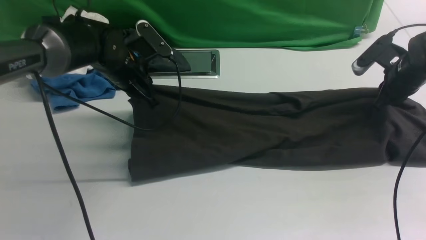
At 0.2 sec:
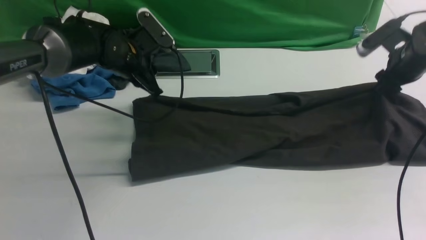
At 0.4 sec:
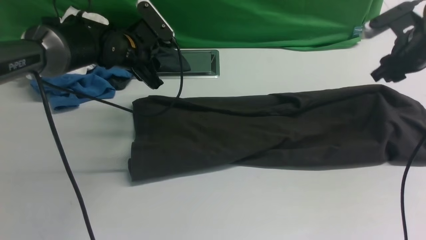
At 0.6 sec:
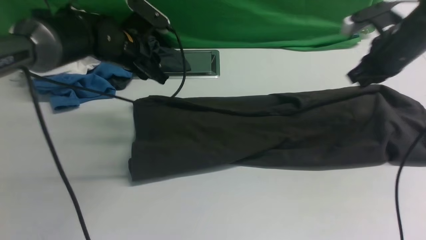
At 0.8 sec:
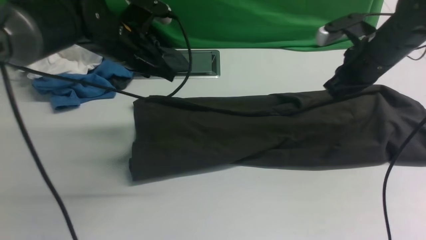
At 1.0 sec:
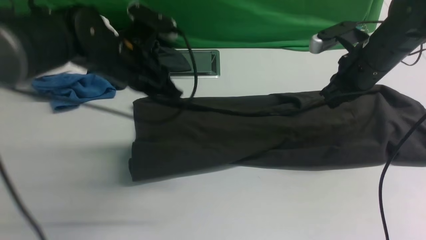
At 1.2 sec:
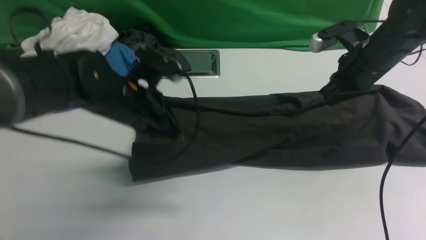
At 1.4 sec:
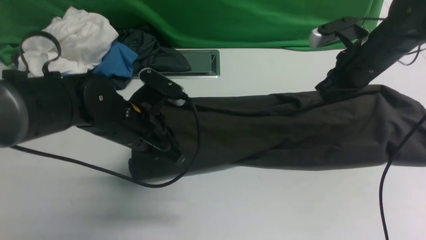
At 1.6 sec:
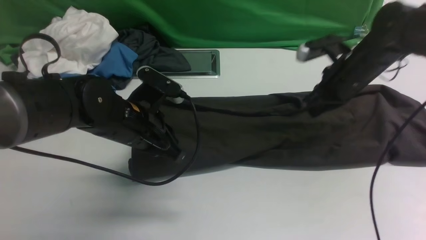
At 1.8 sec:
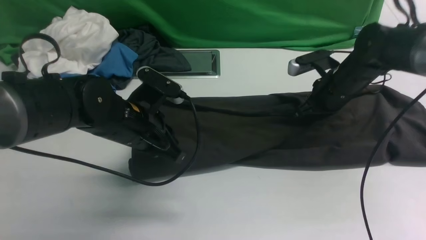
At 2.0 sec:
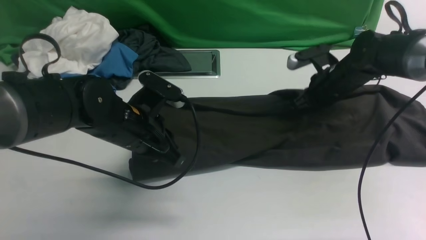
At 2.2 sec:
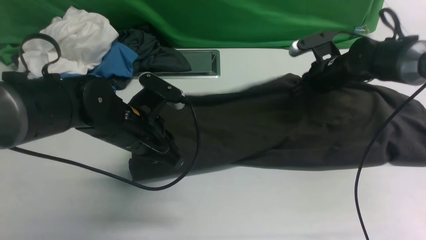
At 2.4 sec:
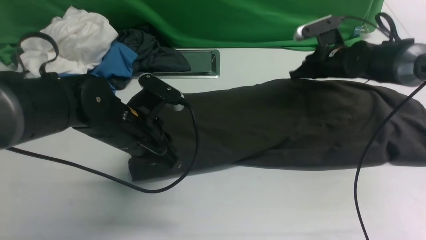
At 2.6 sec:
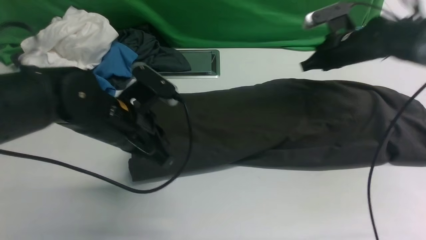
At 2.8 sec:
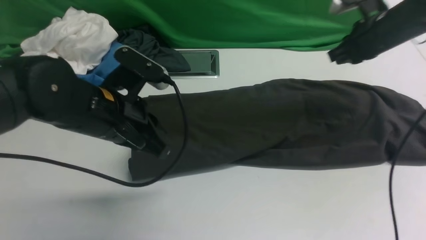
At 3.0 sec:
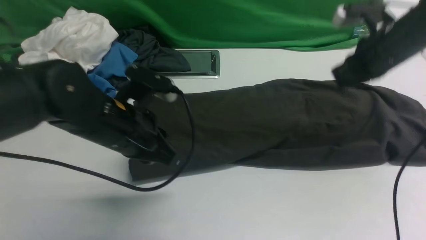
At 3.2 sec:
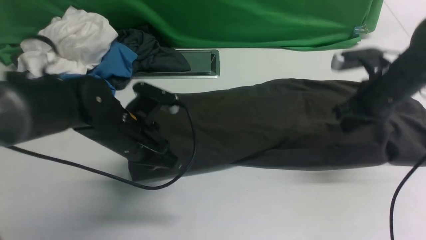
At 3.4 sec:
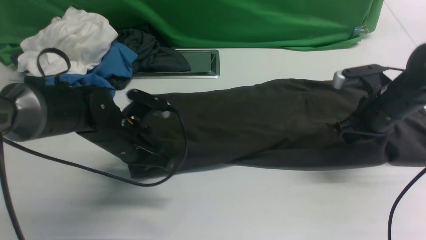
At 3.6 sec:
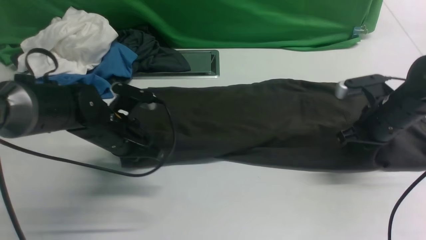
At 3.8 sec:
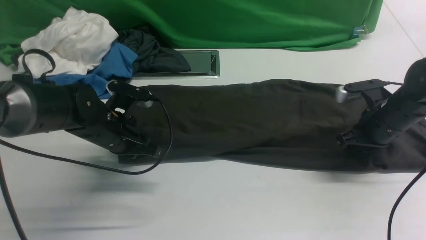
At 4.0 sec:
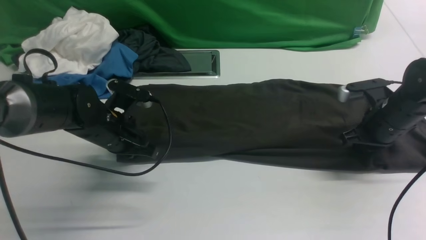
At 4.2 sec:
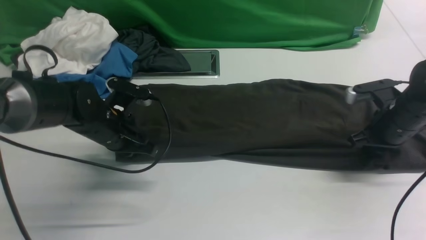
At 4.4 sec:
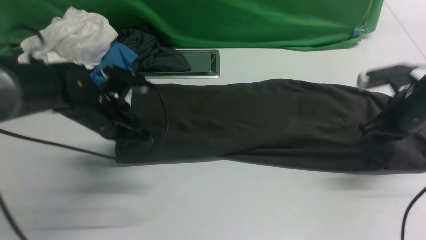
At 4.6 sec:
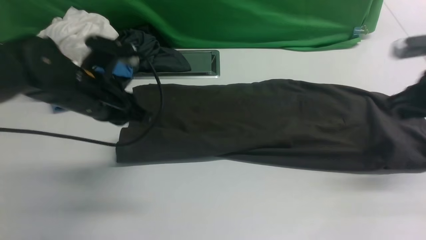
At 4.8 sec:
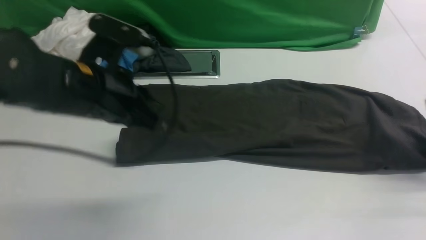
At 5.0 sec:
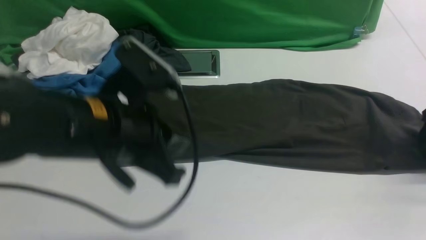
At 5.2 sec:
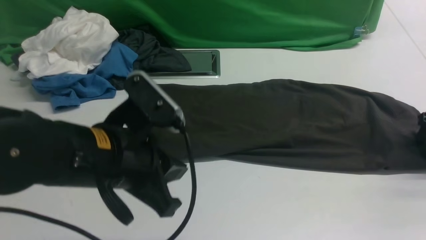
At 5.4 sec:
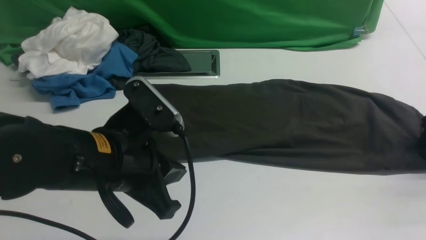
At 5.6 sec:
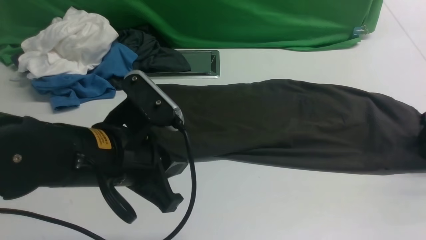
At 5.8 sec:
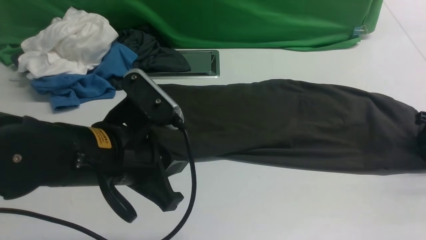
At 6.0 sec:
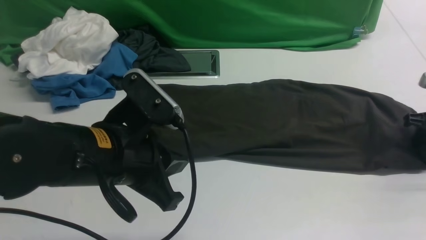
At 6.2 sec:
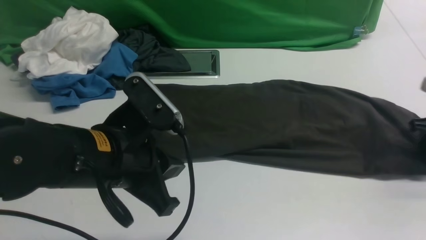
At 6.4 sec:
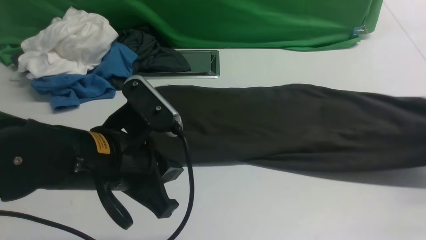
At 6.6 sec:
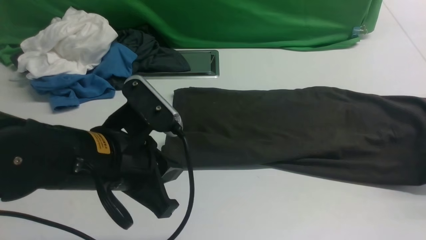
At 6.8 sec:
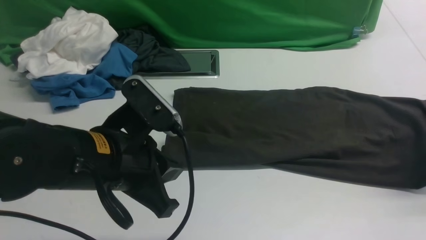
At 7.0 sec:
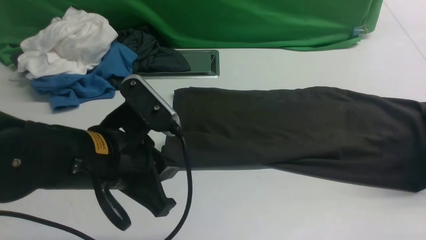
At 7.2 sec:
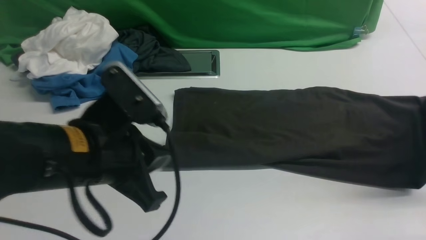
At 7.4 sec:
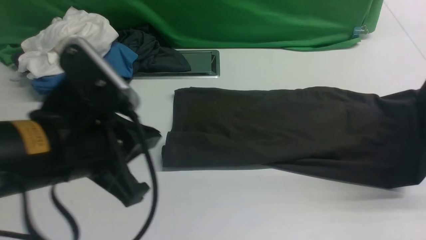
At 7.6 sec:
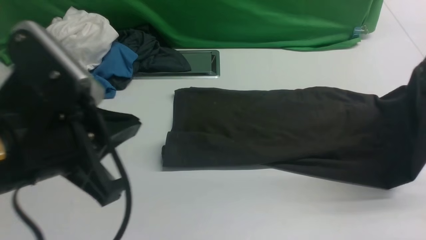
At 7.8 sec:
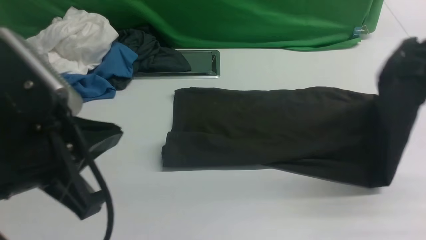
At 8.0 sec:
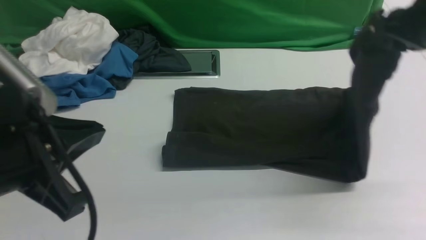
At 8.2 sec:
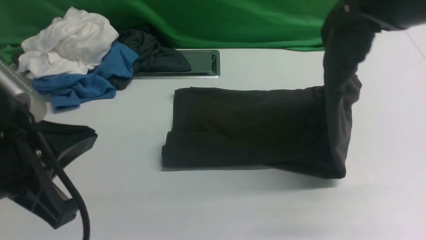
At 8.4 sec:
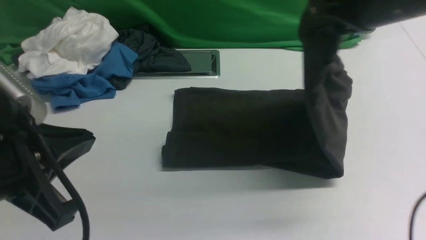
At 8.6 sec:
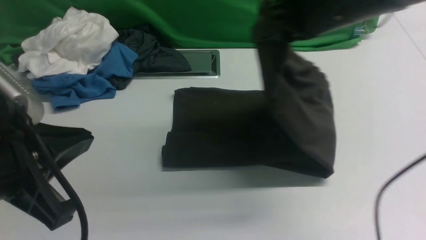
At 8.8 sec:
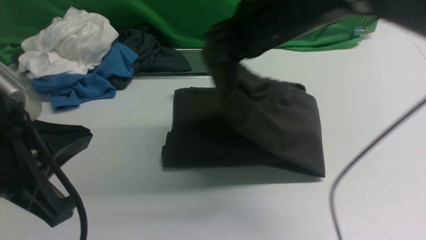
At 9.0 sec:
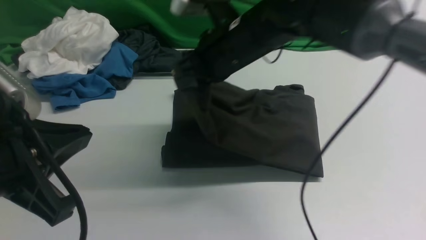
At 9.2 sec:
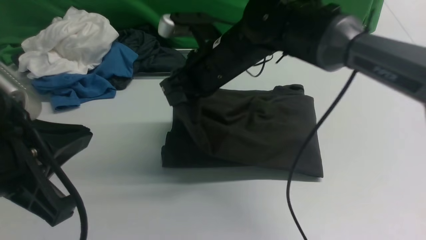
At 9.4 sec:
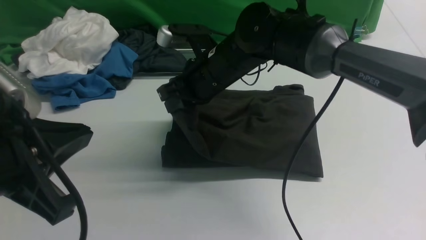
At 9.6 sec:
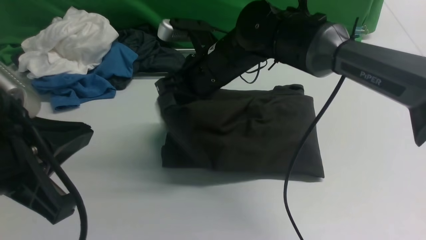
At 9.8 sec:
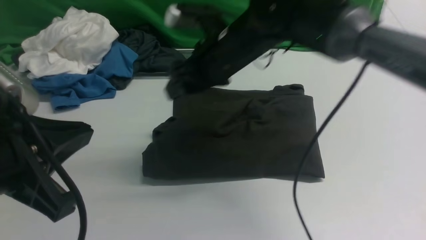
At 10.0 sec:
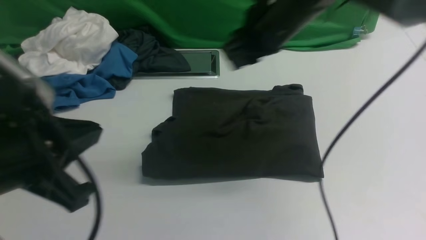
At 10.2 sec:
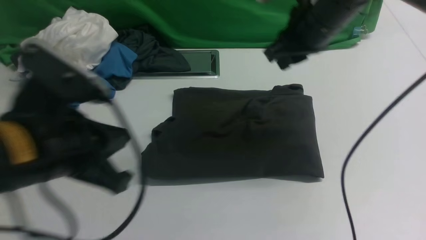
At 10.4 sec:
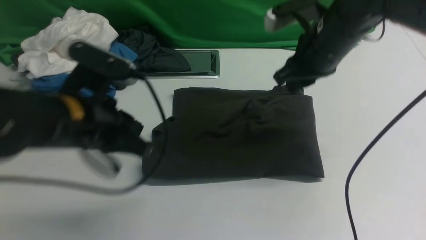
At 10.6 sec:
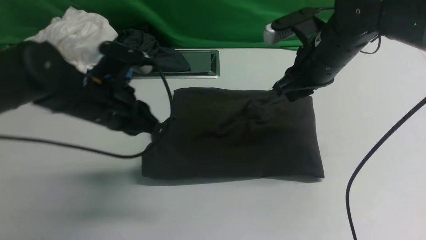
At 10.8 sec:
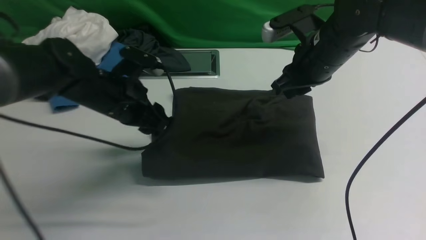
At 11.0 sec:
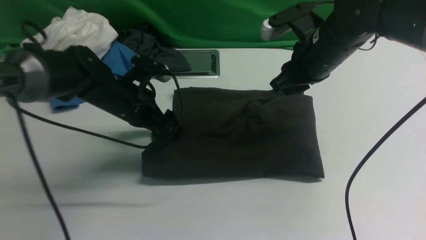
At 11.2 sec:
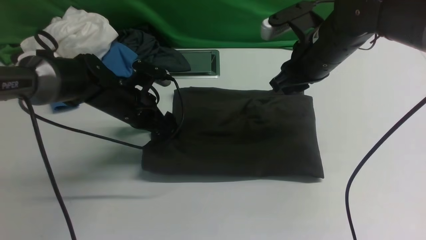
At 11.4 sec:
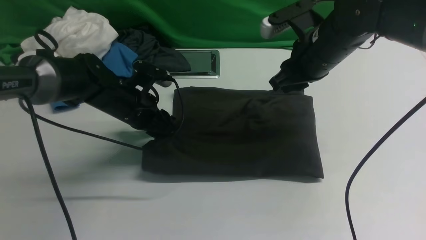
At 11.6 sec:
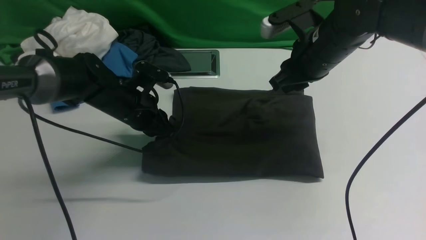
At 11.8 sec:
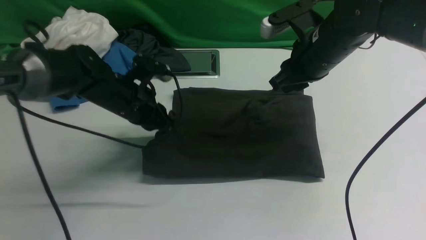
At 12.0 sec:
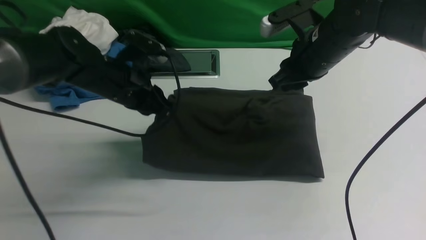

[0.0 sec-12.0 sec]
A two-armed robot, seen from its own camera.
Step, 0.8 sec to 5.4 sec: use the right arm to clamp the right edge of the fabric.
Step, 5.6 sec to 9.8 sec: use the right arm to drag the right edge of the fabric to the left and folds it over the left edge.
0.0 sec to 1.6 sec: The right gripper travels to the left by approximately 10 cm, and closes. The left gripper goes some 15 cm backward, and opens and closes again.
1.6 sec to 3.0 sec: The right gripper ends up roughly 5 cm from where it was.
3.0 sec to 4.4 sec: The left gripper shifts by about 5 cm; the right gripper heads backward, covering approximately 5 cm.
4.4 sec to 6.0 sec: The right gripper goes approximately 10 cm to the right and downward, and opens and closes again. The left gripper travels backward, upward and to the right by approximately 15 cm.
6.0 sec to 7.6 sec: The left gripper moves upward, about 5 cm. Meanwhile the right gripper travels upward and to the left by some 20 cm.
7.6 sec to 9.0 sec: The right gripper goes roughly 30 cm to the left.
9.0 sec to 10.4 sec: The right gripper moves to the right, approximately 15 cm, while the left gripper goes about 15 cm forward and downward.
10.4 sec to 12.0 sec: The left gripper is displaced forward and downward by about 15 cm, and opens and closes again.

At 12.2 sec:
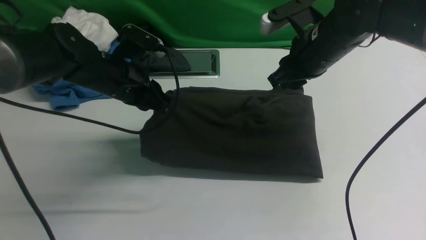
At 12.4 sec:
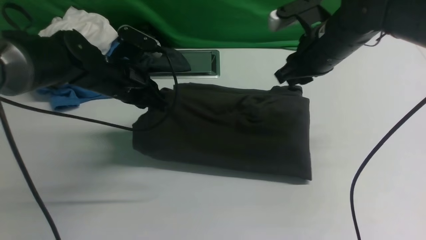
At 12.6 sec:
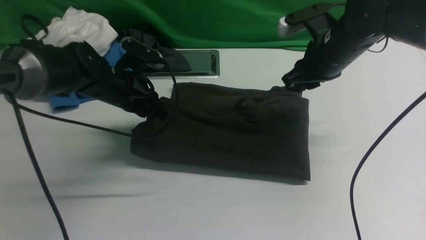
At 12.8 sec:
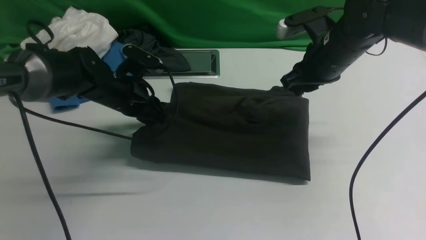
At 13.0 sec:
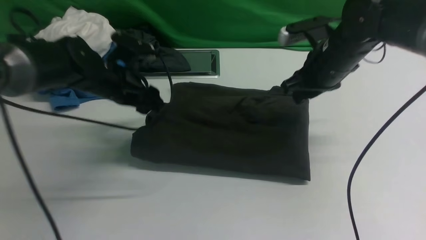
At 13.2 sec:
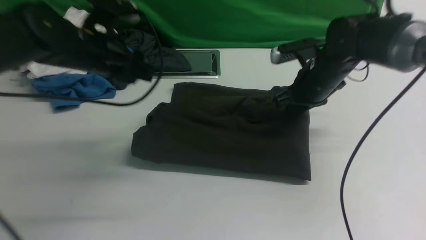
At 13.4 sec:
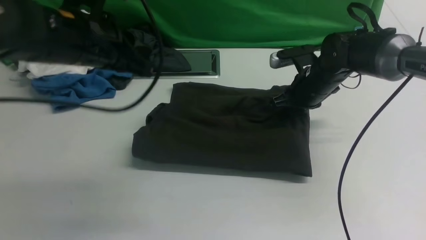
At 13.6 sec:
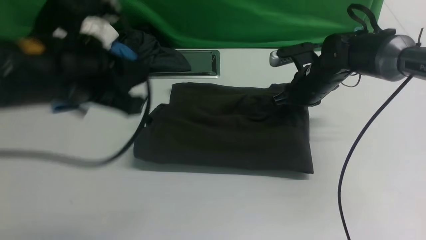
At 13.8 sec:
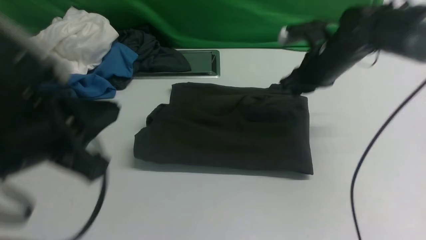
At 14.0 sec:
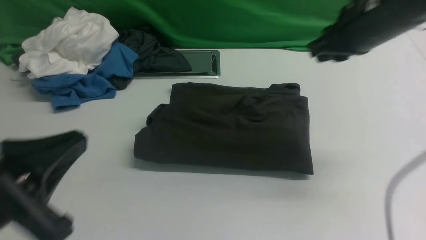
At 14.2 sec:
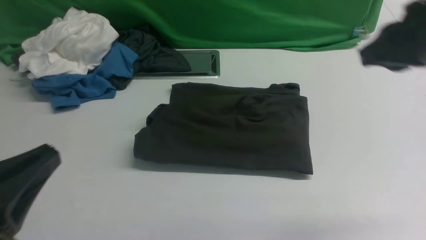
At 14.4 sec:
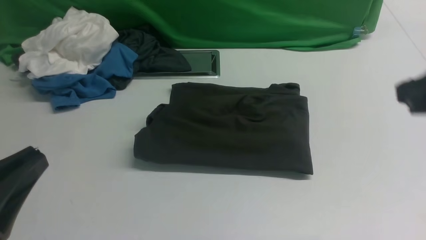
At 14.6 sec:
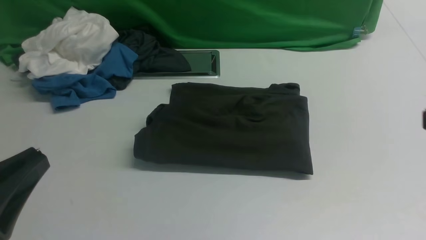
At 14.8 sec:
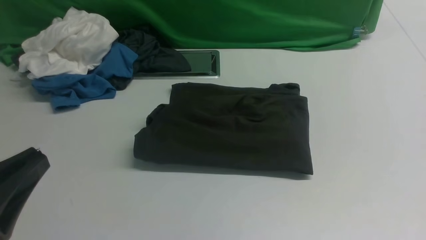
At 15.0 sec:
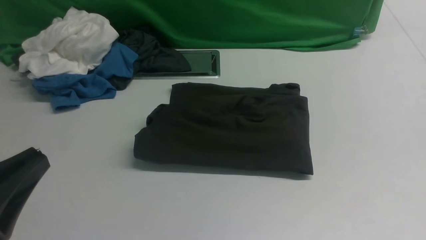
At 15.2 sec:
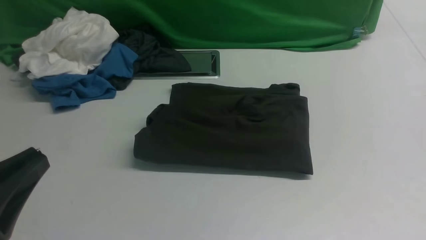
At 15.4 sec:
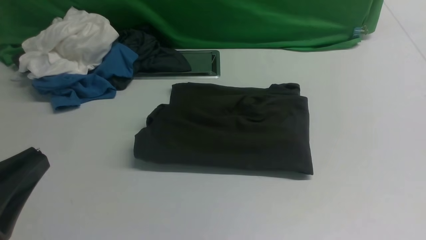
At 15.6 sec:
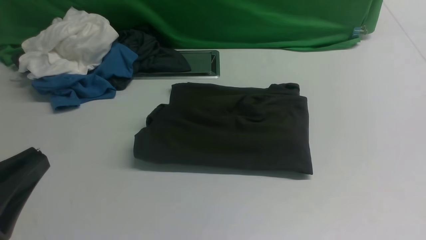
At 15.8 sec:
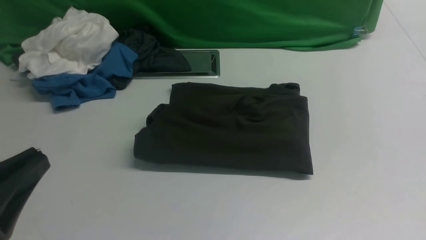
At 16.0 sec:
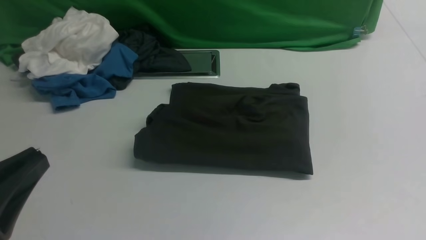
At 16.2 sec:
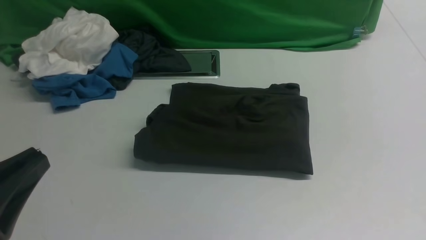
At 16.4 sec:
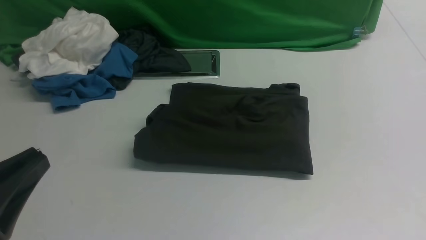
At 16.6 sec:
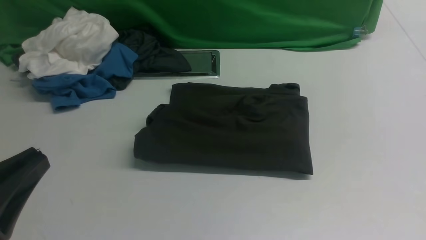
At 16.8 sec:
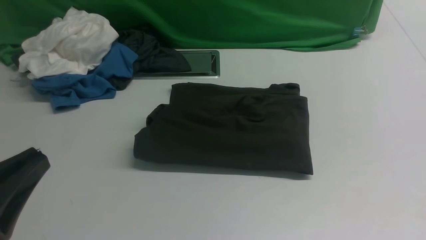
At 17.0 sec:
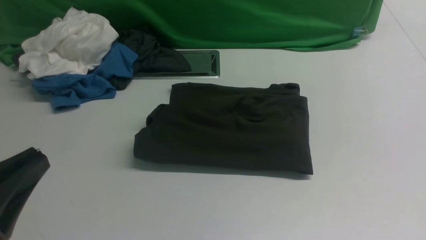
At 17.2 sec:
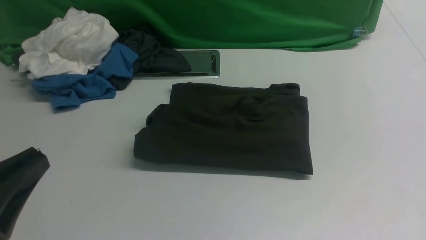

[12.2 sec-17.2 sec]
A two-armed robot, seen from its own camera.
12.2 sec to 13.8 sec: The left gripper is displaced backward and upward by roughly 25 cm, and opens, then closes once more. The right gripper moves approximately 10 cm downward and comes back.
13.8 sec to 15.6 sec: The right gripper heads backward, covering approximately 35 cm. The left gripper moves backward, roughly 10 cm.
